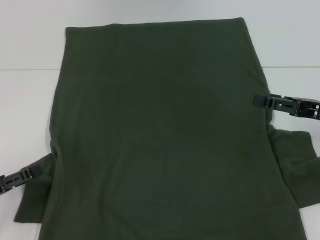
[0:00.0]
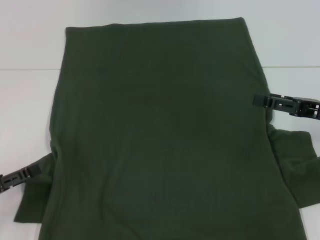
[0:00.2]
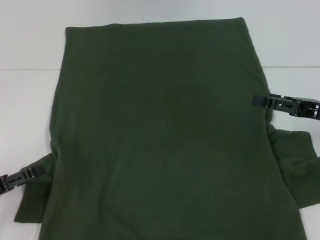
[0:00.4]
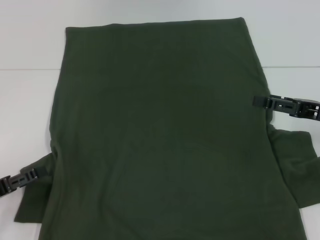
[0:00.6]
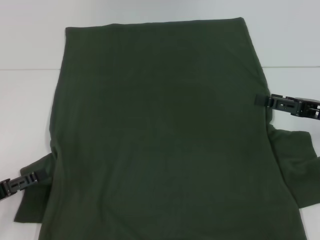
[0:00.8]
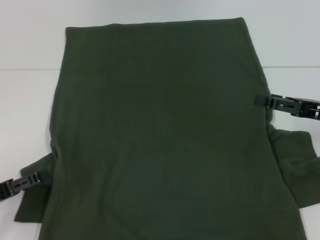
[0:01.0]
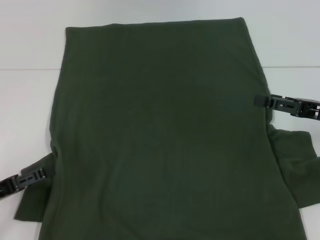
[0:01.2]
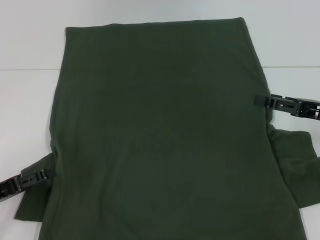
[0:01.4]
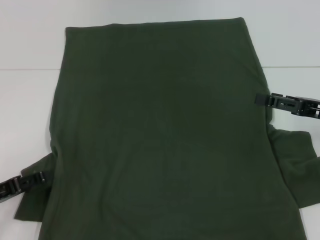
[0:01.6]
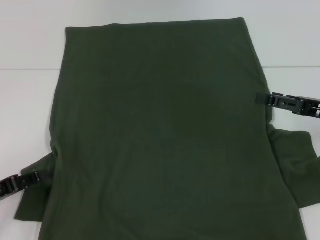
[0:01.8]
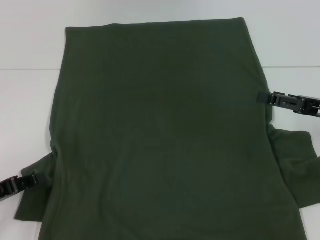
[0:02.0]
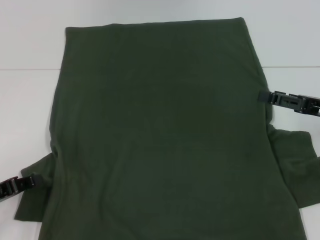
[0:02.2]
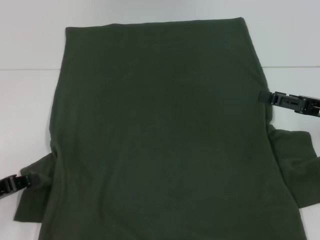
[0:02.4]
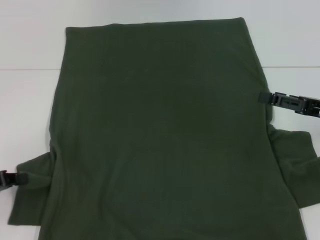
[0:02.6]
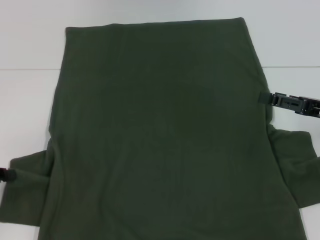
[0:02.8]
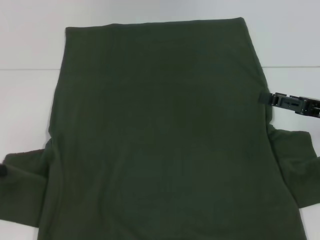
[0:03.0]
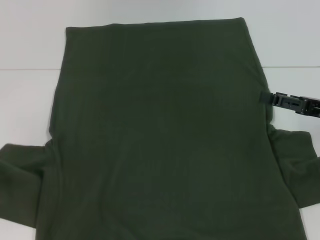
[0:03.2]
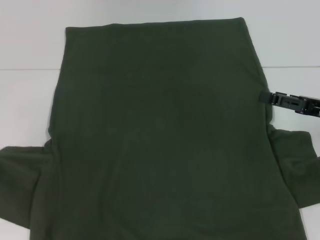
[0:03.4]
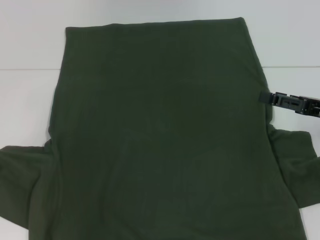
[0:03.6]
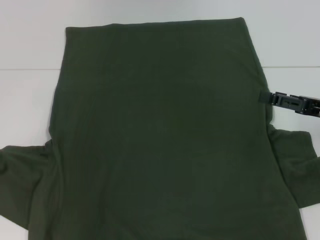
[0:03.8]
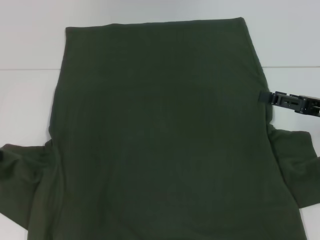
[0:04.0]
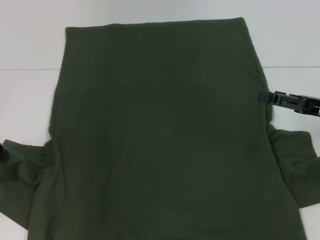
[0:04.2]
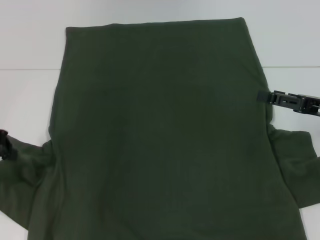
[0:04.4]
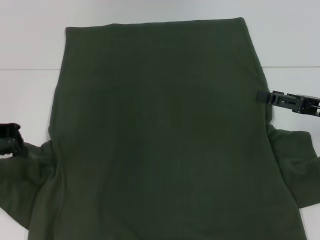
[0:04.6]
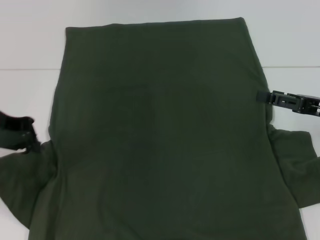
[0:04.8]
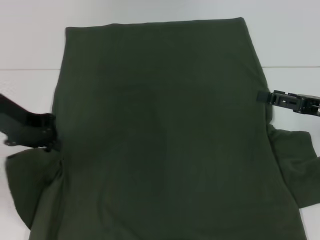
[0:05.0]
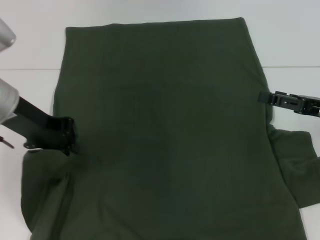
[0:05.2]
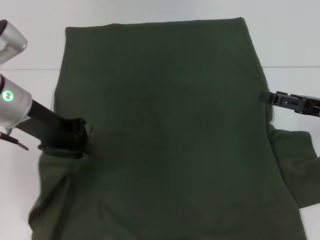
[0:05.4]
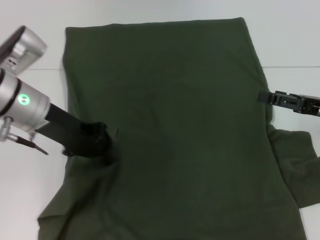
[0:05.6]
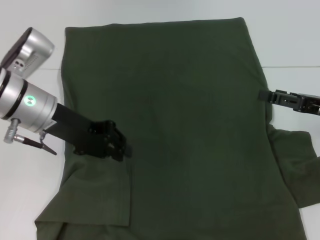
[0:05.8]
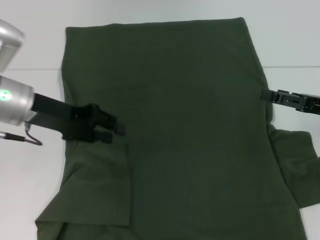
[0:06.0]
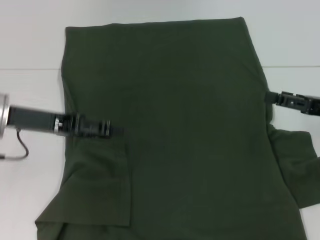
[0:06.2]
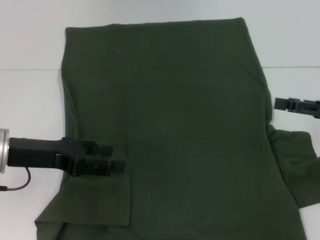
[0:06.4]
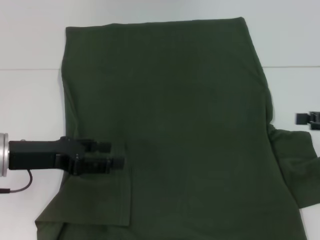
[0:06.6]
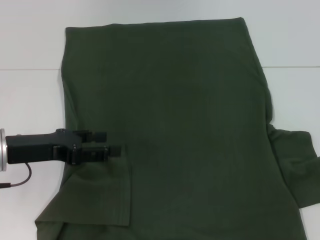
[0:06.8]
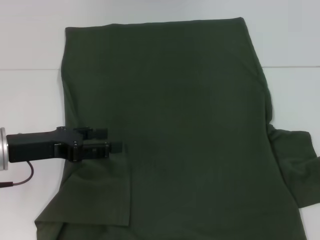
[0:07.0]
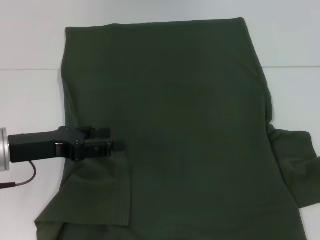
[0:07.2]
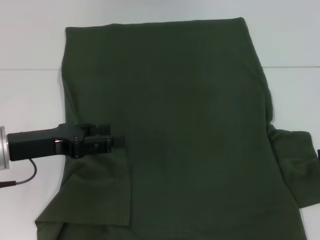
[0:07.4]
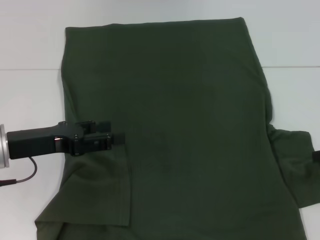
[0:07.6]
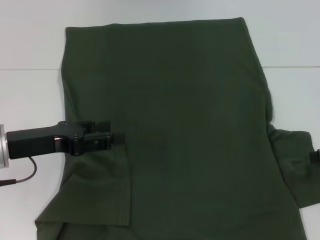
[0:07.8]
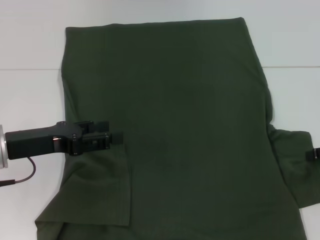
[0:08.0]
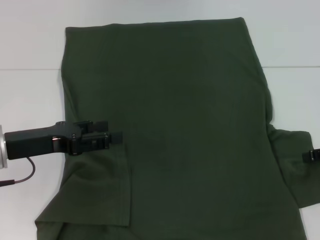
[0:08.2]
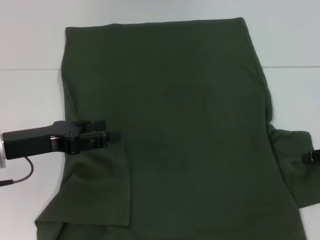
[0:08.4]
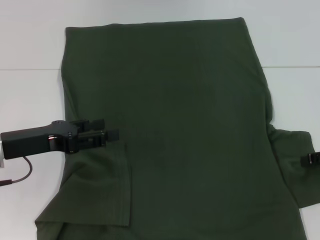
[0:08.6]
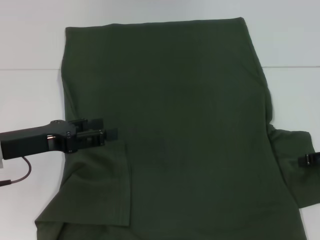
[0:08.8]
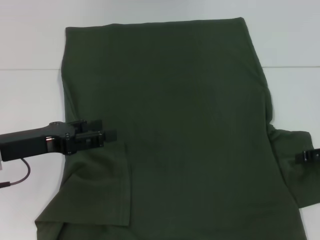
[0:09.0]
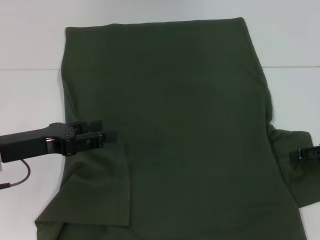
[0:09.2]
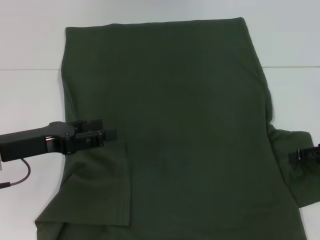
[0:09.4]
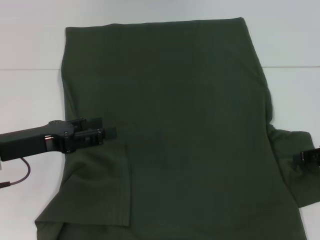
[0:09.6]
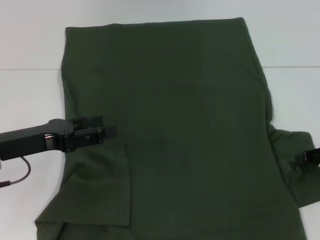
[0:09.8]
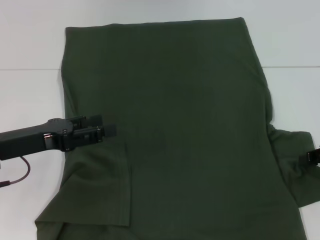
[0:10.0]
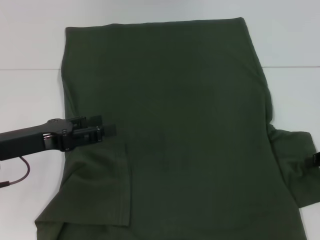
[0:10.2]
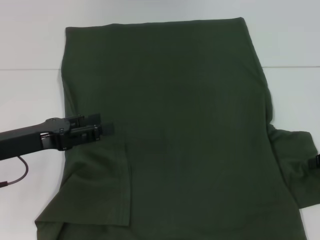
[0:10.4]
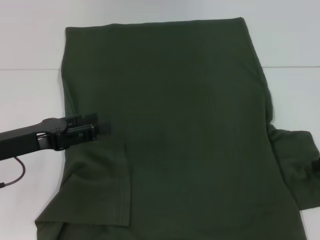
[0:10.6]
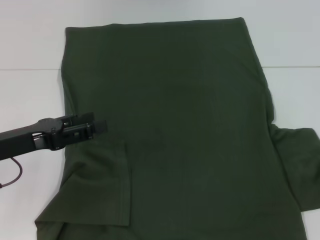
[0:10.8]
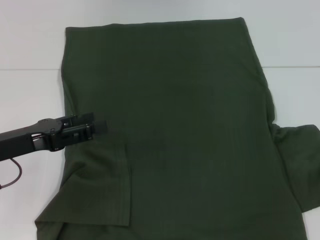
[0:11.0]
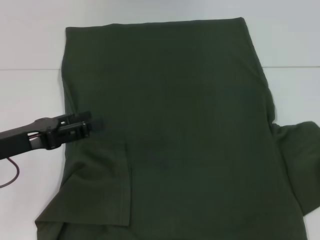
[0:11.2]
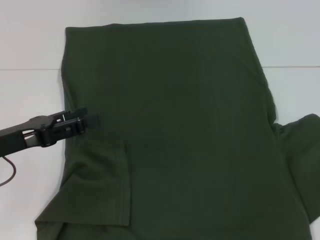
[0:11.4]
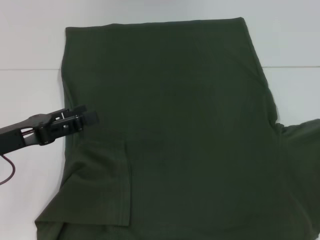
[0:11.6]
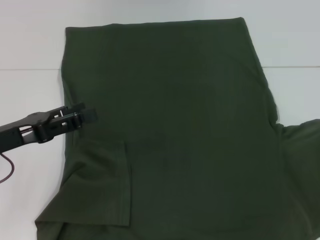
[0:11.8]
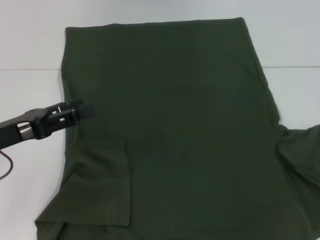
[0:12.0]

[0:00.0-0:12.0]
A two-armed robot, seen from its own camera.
Step, 0:00.0 to 0:05.6: Fold the bottom left sleeve with your left hand.
0:00.0 to 0:01.6: The grippers move only a little.
0:01.6 to 0:03.0: The left gripper heads upward, covering roughly 5 cm, and closes its fingers.
0:03.0 to 0:04.4: The left gripper goes about 10 cm upward and forward.
0:04.4 to 0:06.0: The left gripper travels to the right by roughly 10 cm.
0:06.0 to 0:07.6: The left gripper shifts some 5 cm backward, and opens. The right gripper goes roughly 5 cm to the right.
0:07.6 to 0:09.0: The grippers move only a little.
0:10.4 to 0:12.0: The right gripper shifts about 5 cm upward.

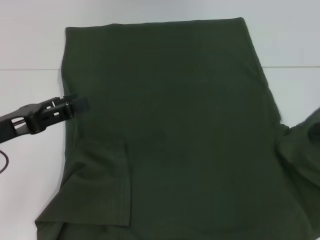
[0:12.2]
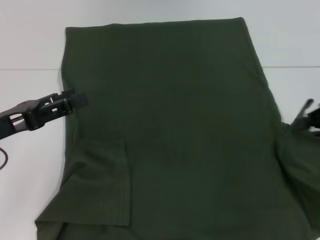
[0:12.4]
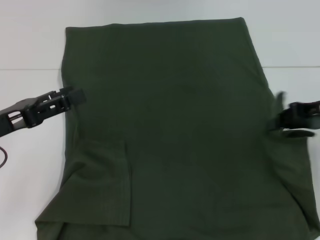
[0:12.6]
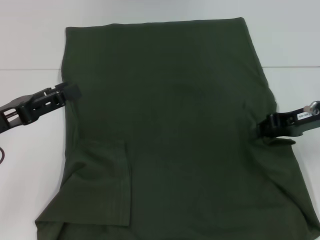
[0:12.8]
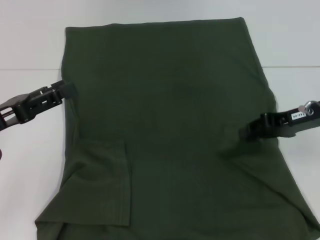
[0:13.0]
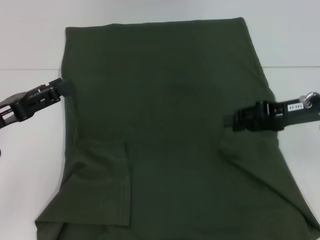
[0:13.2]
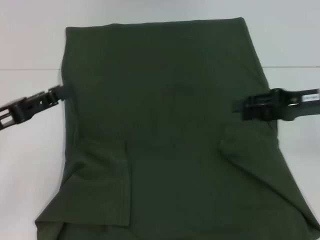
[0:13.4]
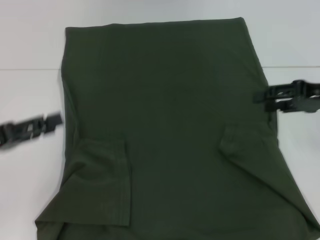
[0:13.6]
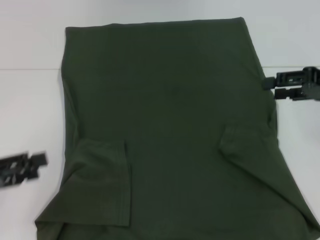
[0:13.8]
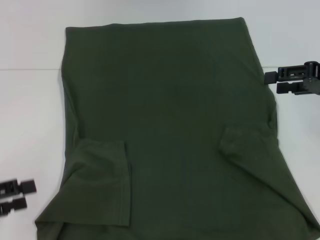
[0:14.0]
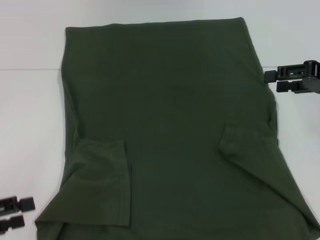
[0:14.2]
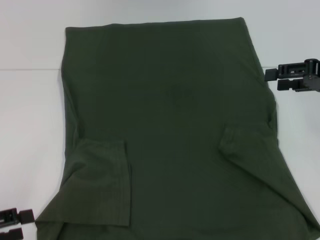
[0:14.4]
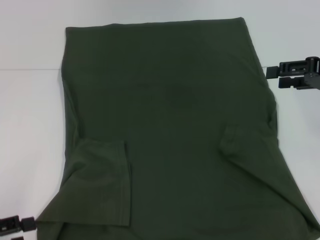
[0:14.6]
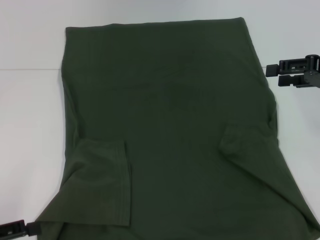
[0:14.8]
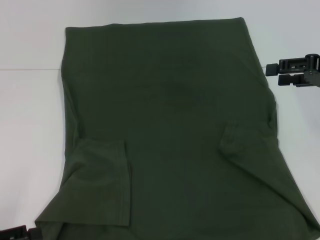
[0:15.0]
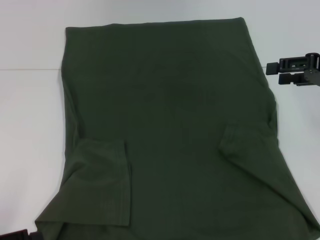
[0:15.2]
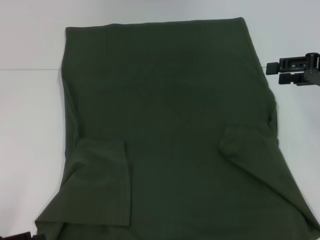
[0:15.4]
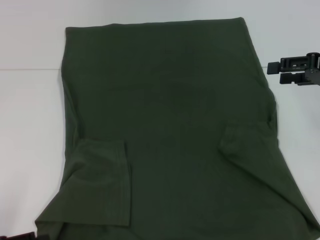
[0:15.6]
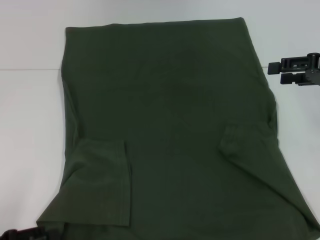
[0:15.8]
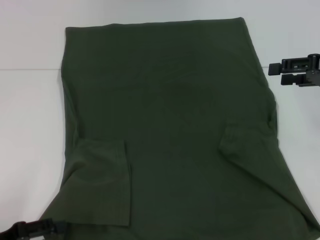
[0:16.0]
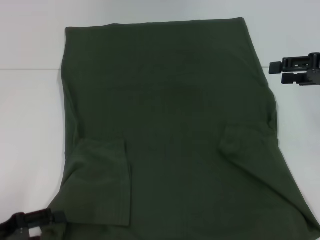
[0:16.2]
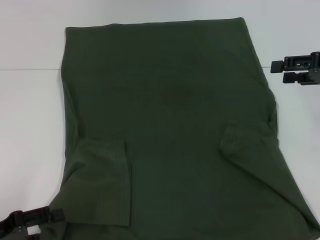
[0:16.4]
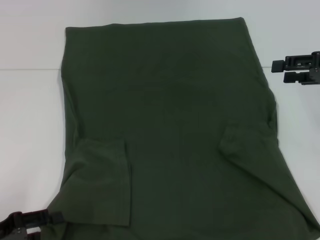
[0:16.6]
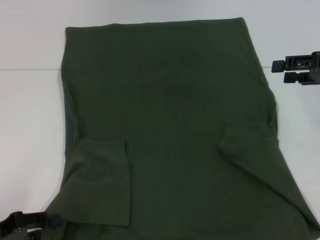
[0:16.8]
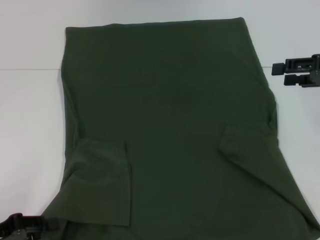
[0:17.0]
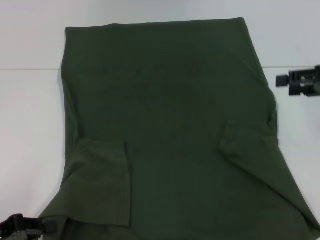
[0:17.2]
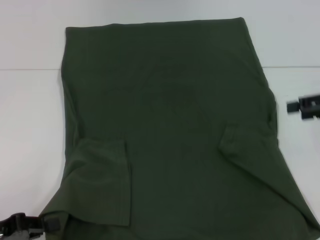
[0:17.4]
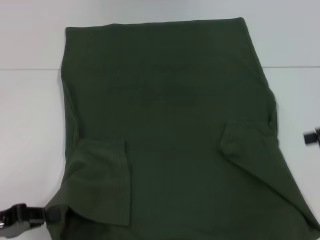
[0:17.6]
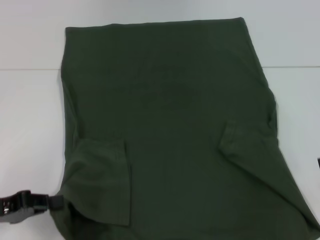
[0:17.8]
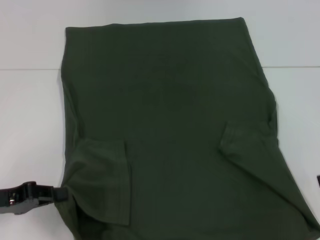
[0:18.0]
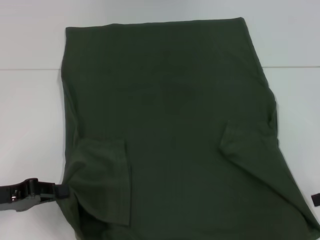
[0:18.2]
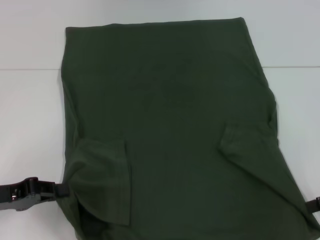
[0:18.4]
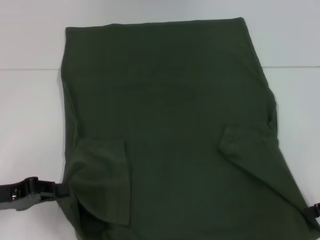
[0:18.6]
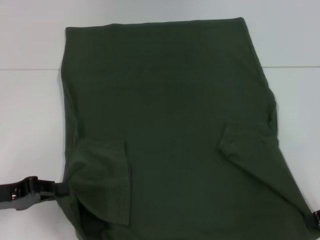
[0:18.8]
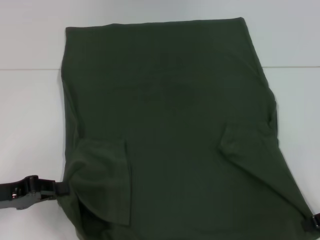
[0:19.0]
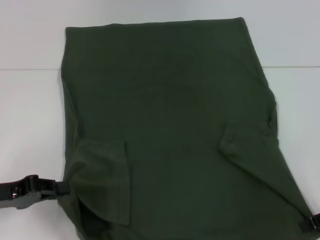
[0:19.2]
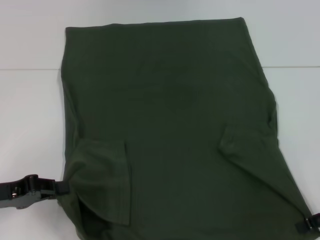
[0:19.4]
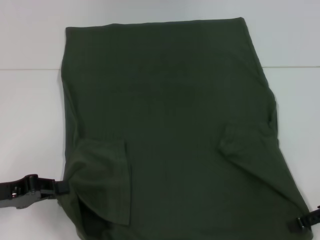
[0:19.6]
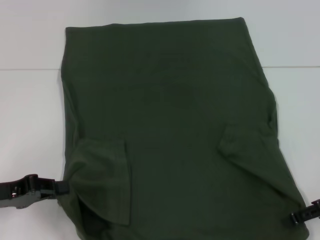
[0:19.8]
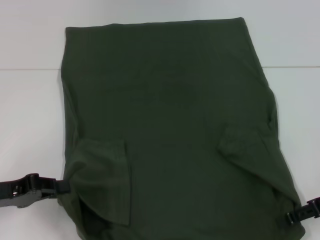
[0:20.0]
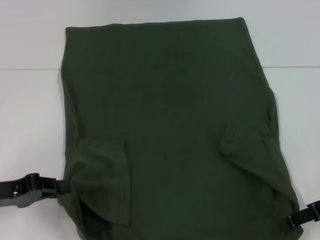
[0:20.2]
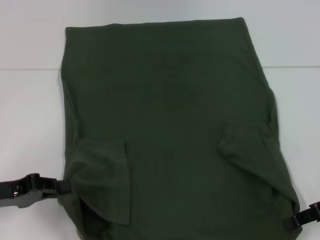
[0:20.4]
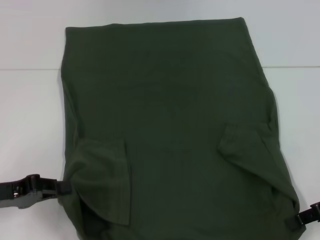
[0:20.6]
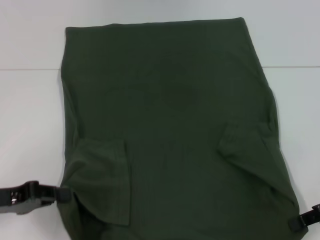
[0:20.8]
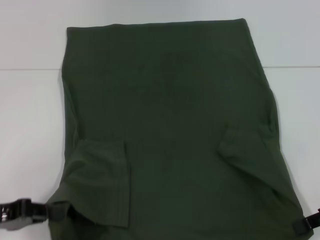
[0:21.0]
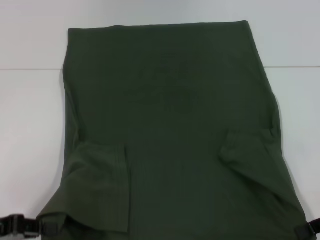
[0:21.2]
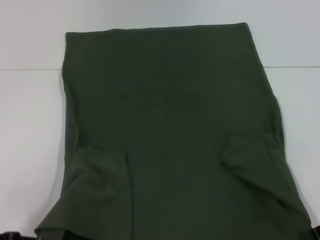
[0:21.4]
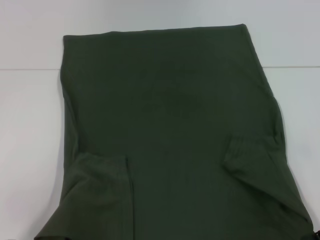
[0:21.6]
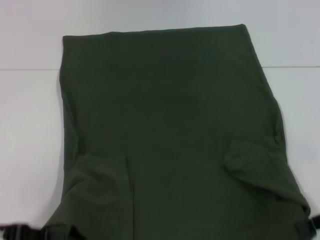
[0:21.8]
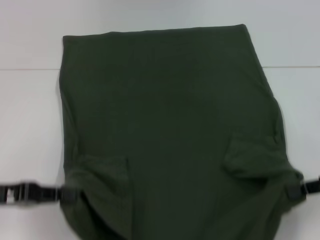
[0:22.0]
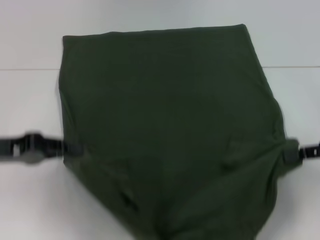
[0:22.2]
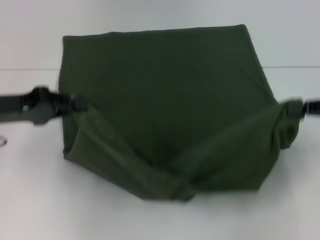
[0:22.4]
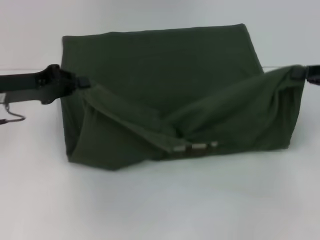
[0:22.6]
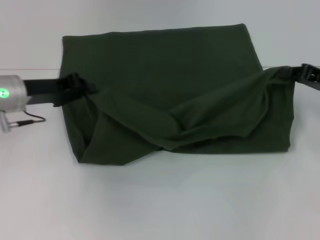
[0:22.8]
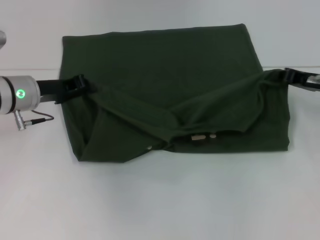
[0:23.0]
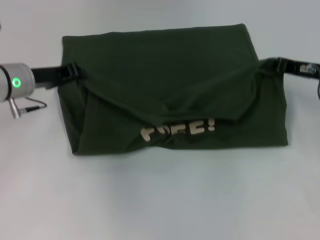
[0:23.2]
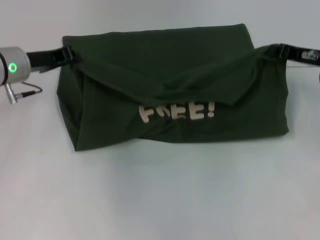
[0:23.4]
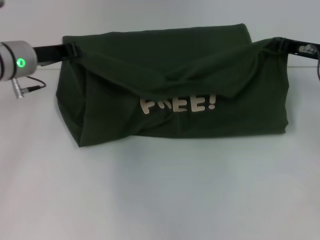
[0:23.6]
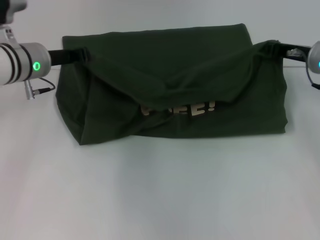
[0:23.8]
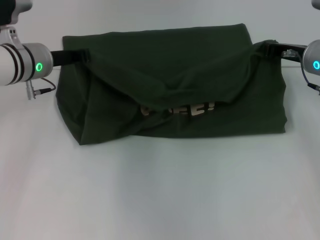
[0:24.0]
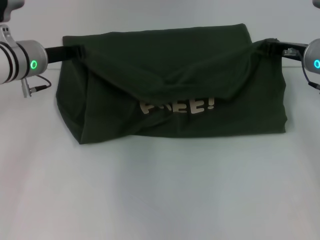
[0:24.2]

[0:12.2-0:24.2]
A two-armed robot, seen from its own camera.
Step, 0:13.4 to 0:17.4: Grab the bottom left corner with your left hand.
Step, 0:17.6 to 0:20.6: Grab the bottom right corner with your right hand.
0:12.2 to 0:13.8: The left gripper moves to the left, some 5 cm; the right gripper opens.
0:13.8 to 0:15.2: The left gripper shifts some 10 cm backward and downward.
0:15.2 to 0:16.6: The grippers make only small movements.
0:16.6 to 0:18.2: The left gripper is displaced forward by approximately 5 cm, and closes its fingers. Meanwhile the right gripper moves backward and downward, approximately 10 cm.
0:18.2 to 0:19.8: The right gripper shifts by roughly 5 cm.
0:19.8 to 0:21.2: The right gripper closes up.
0:21.2 to 0:22.6: The right gripper is displaced forward and upward by about 10 cm. Meanwhile the left gripper goes some 15 cm forward and upward.
0:22.6 to 0:24.2: The right gripper is displaced to the left and forward by some 15 cm. The left gripper heads forward and to the right, covering approximately 10 cm.
